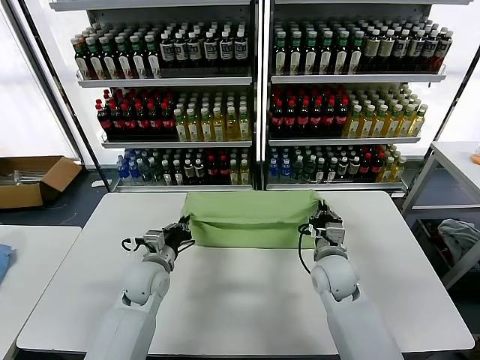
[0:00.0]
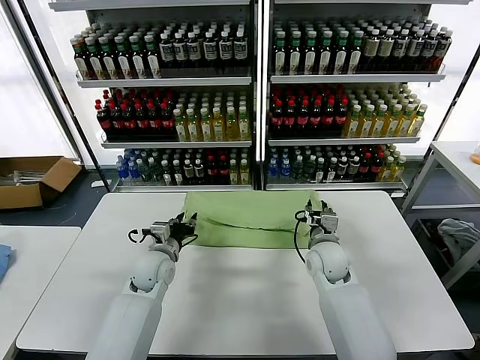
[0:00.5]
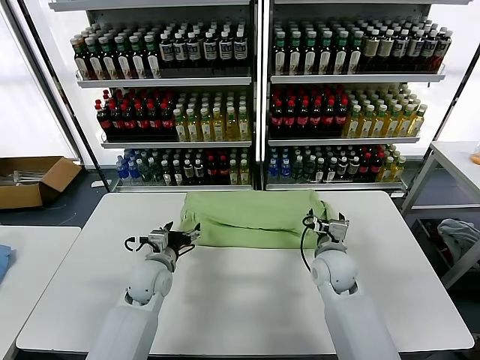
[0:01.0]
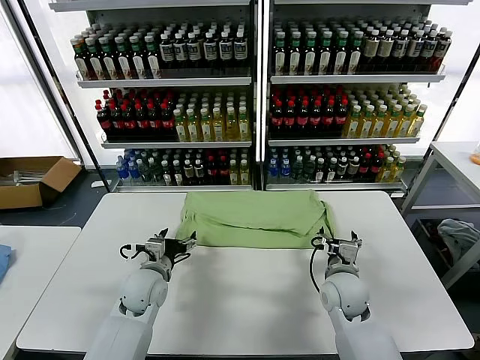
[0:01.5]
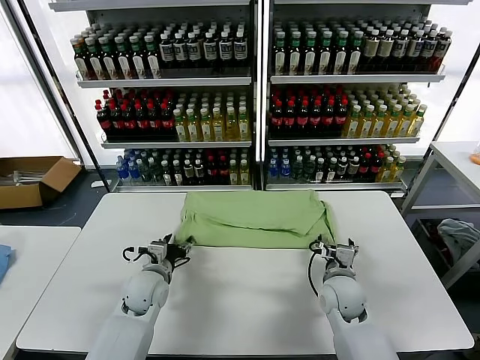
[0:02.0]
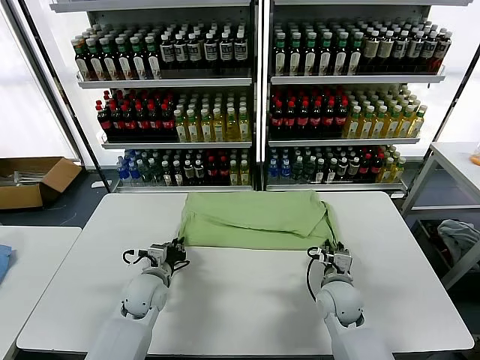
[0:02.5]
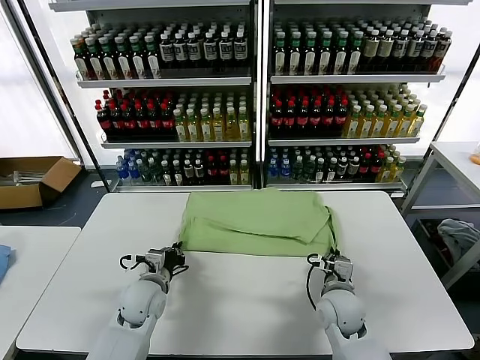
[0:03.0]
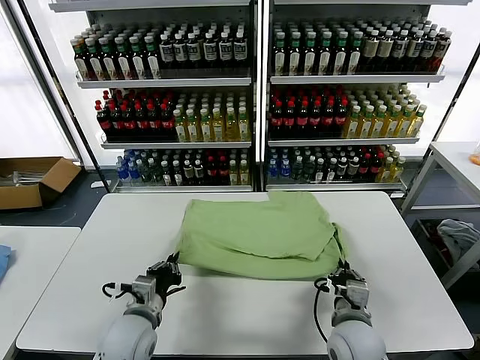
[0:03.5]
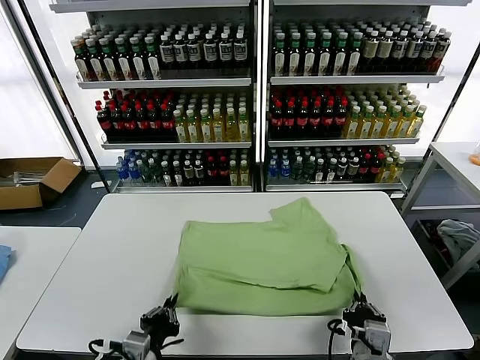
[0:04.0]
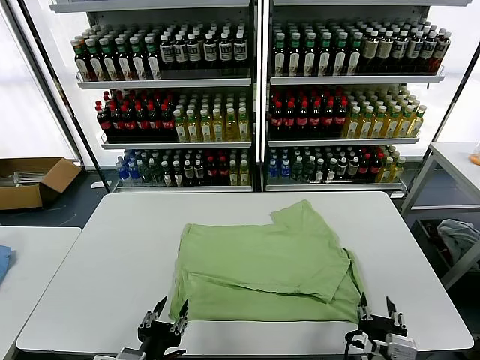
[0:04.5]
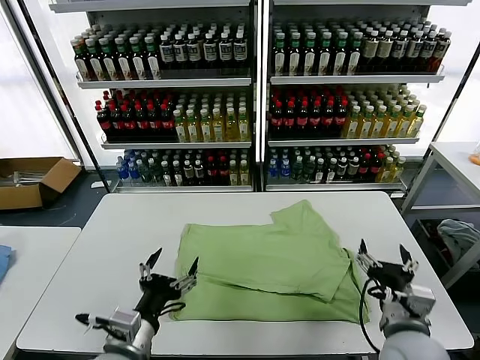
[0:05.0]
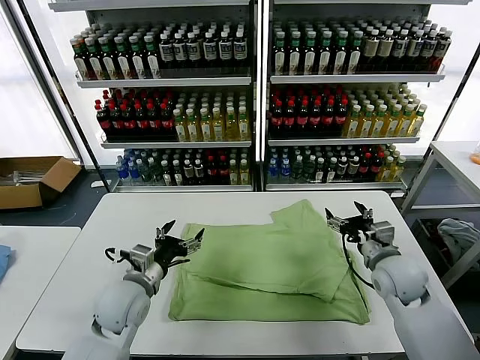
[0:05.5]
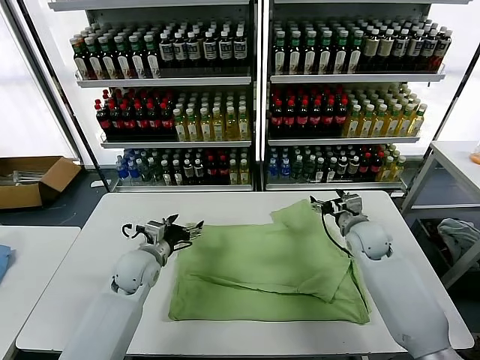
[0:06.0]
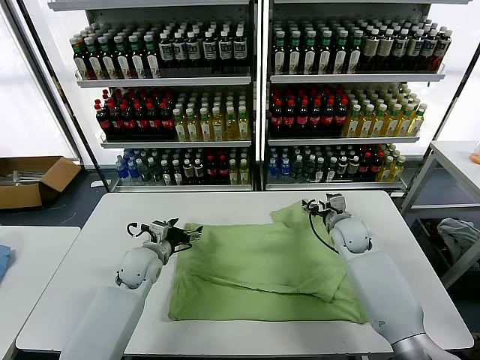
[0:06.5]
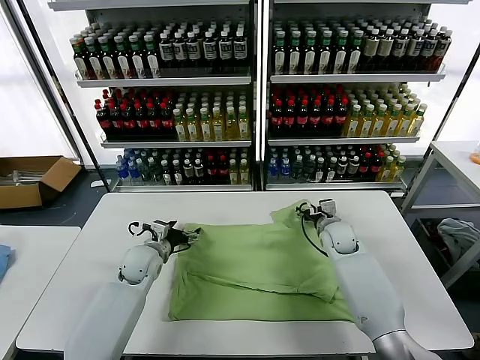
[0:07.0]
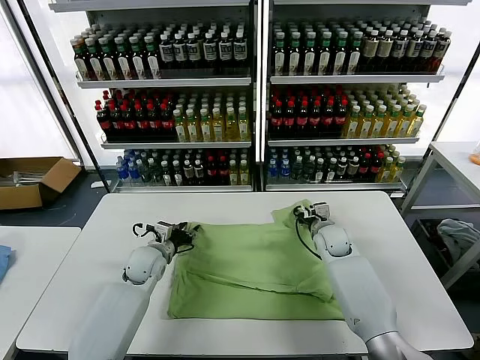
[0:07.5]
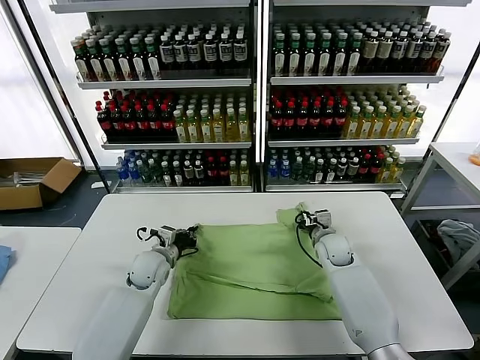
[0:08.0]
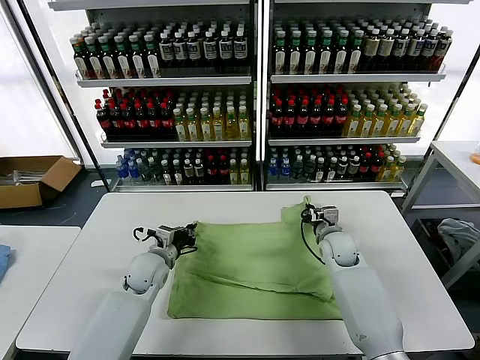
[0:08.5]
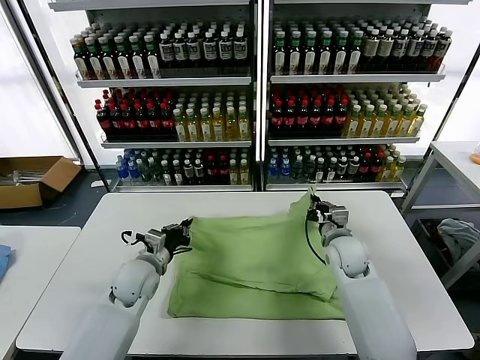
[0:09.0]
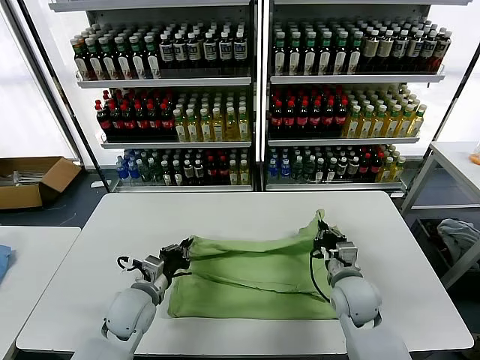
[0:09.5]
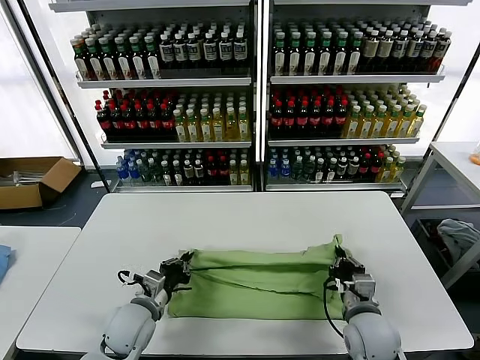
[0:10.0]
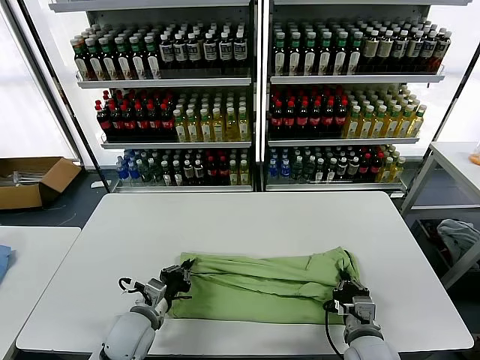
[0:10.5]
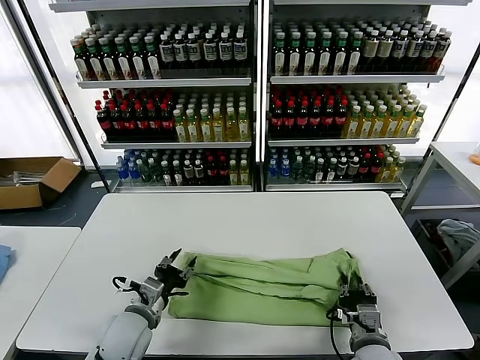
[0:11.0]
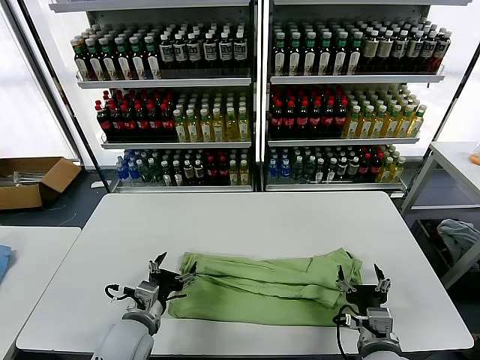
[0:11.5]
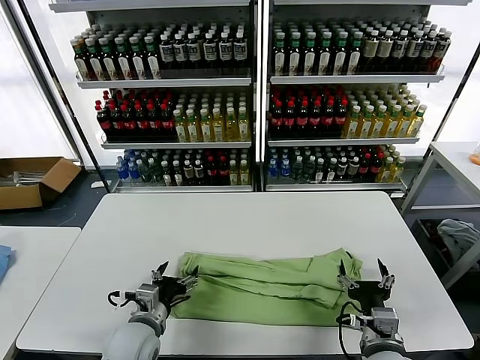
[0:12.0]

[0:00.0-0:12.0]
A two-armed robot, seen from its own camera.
Task of the whole recording: fold and organize the clothes.
Step, 0:01.0 to 0:04.0: Drag the clothes downward with both gripper.
Step, 0:04.5 to 0:08.0: use both grippers simultaneously to clamp the upper edge of the clothing fabric.
Step, 0:08.5 to 0:11.0: use both grippers to drag the upper edge of the fabric backward and fold it over the lower edge.
0:00.0 to 0:02.0: The left gripper opens; the right gripper ends up some 5 cm from where it was, and opens up.
0:02.0 to 0:04.0: The grippers both shift backward by approximately 20 cm. The left gripper closes up; the right gripper closes its fingers.
0:04.0 to 0:06.0: The two grippers go roughly 30 cm forward. The right gripper opens its fingers; the left gripper opens.
0:06.0 to 0:08.0: The left gripper shifts about 5 cm downward, and closes up. The right gripper goes about 10 cm downward and to the left, and closes.
0:08.0 to 0:10.0: The right gripper is displaced backward by some 25 cm. The left gripper travels backward by some 15 cm.
0:10.0 to 0:12.0: The left gripper opens. Meanwhile the right gripper heads backward, covering about 5 cm, and opens up.

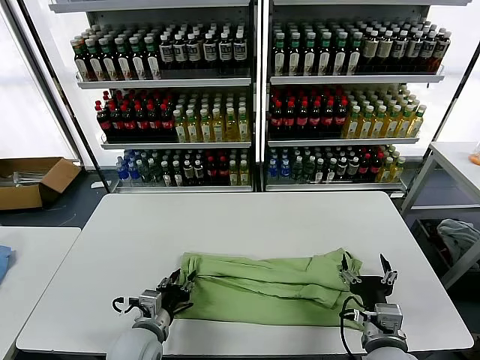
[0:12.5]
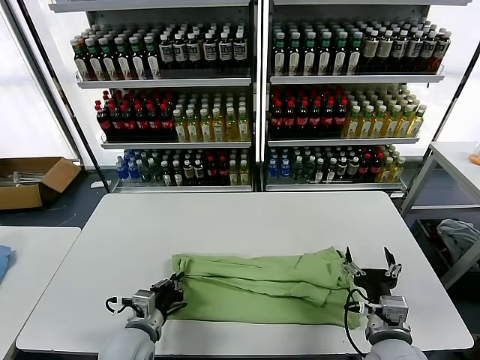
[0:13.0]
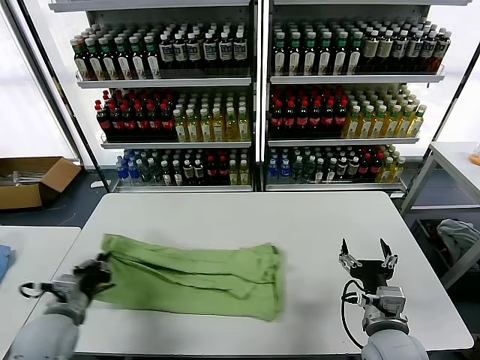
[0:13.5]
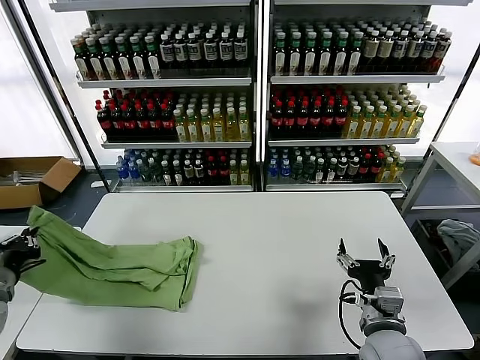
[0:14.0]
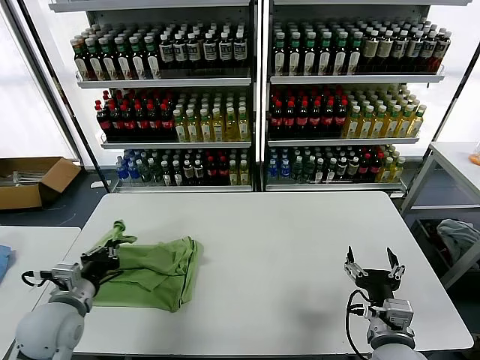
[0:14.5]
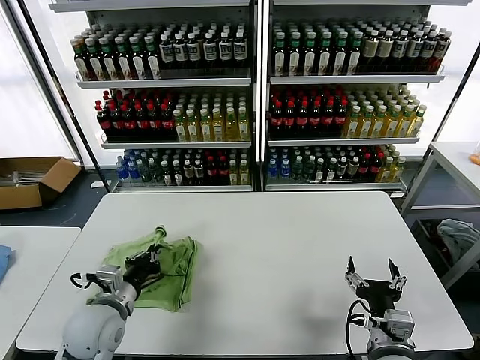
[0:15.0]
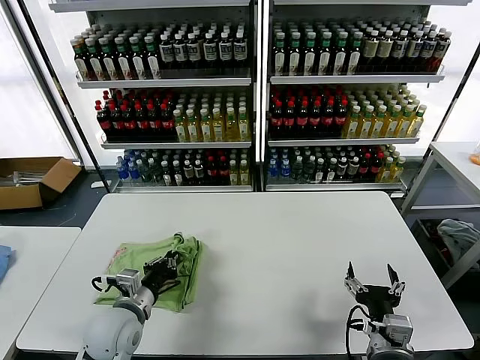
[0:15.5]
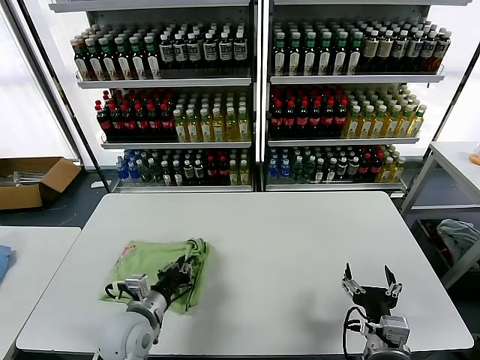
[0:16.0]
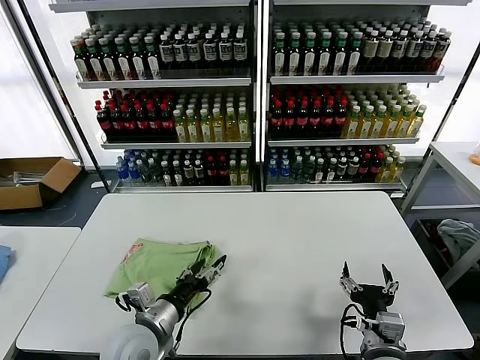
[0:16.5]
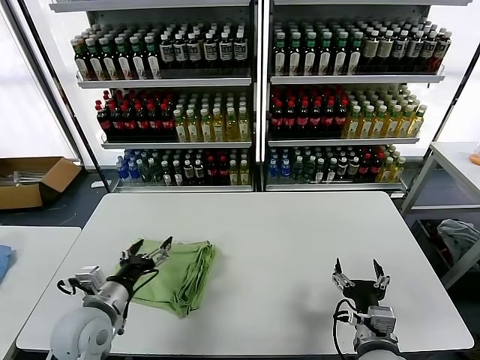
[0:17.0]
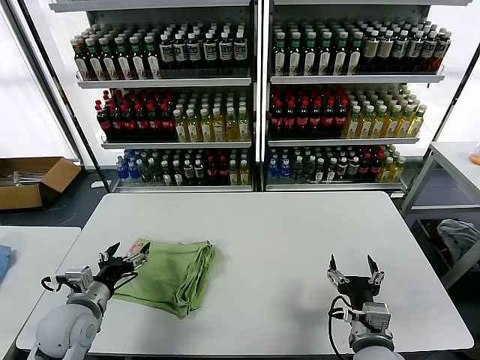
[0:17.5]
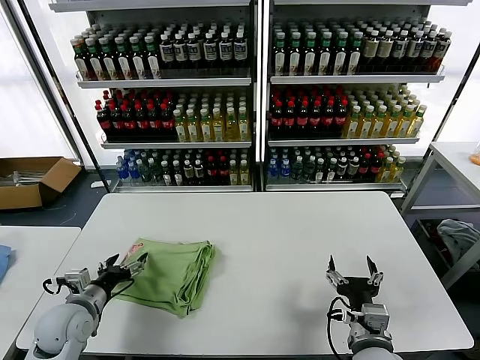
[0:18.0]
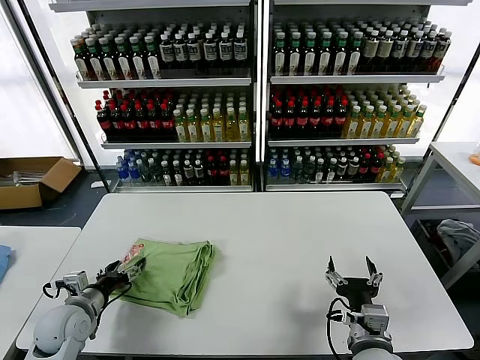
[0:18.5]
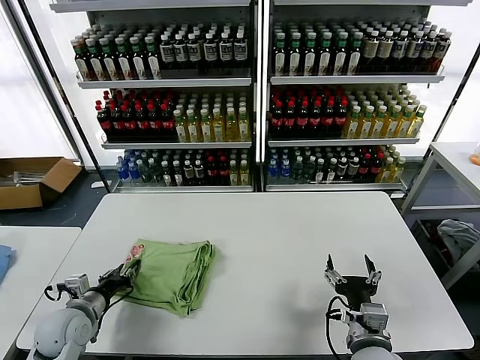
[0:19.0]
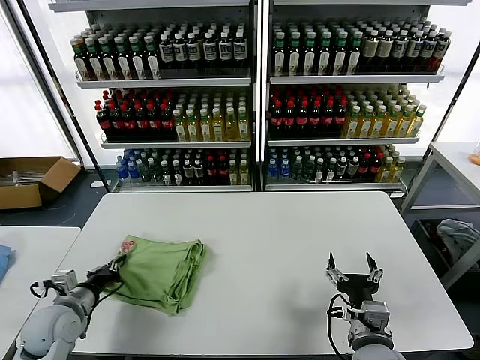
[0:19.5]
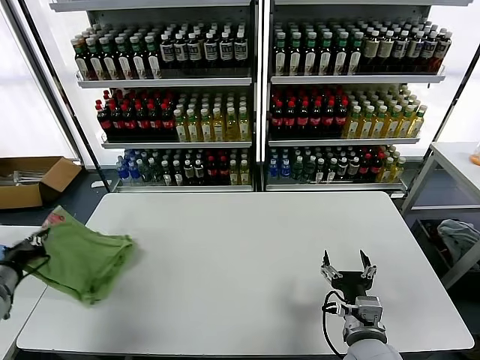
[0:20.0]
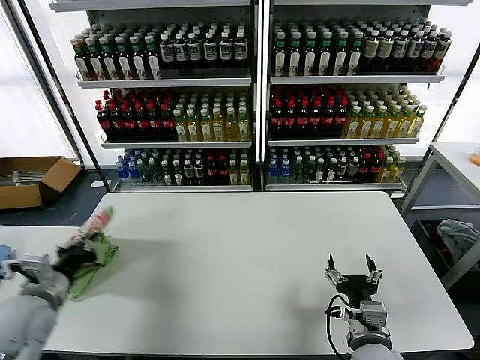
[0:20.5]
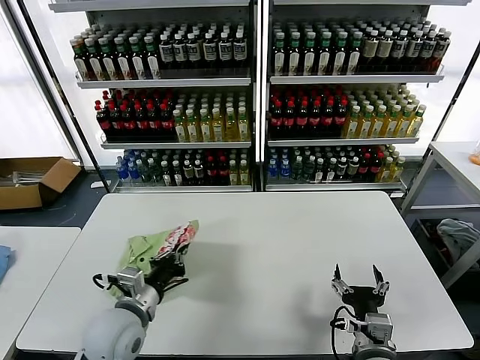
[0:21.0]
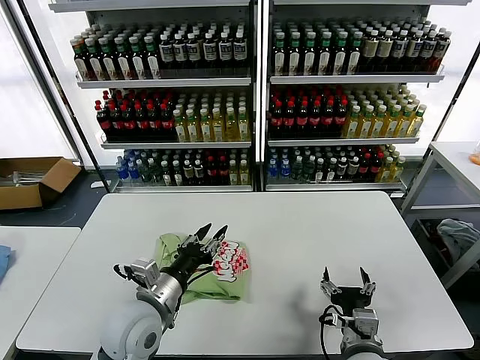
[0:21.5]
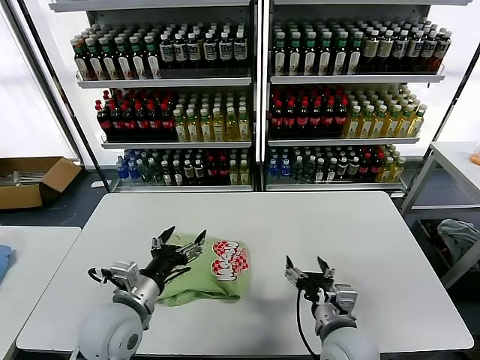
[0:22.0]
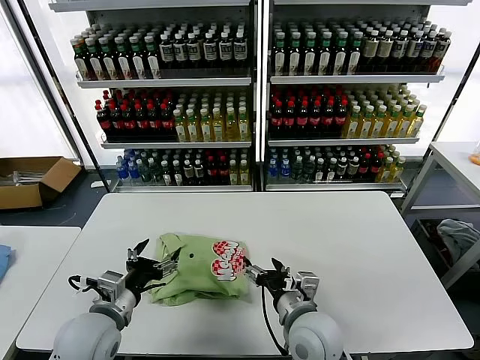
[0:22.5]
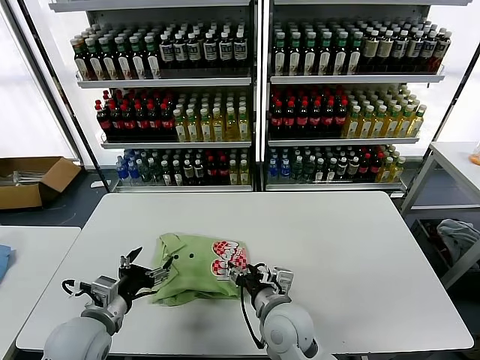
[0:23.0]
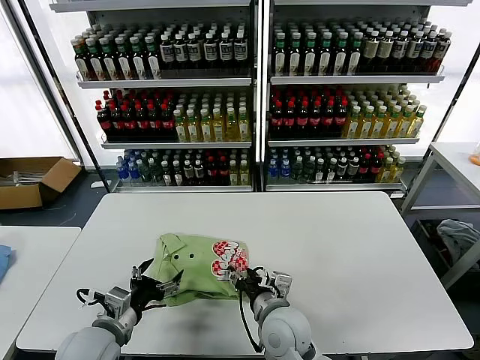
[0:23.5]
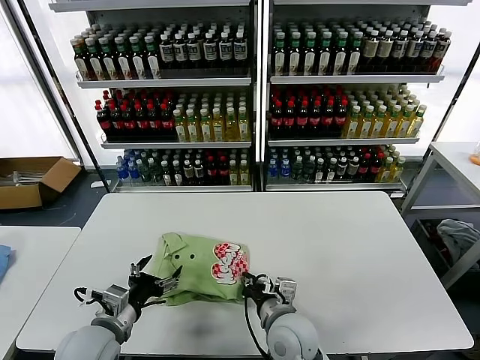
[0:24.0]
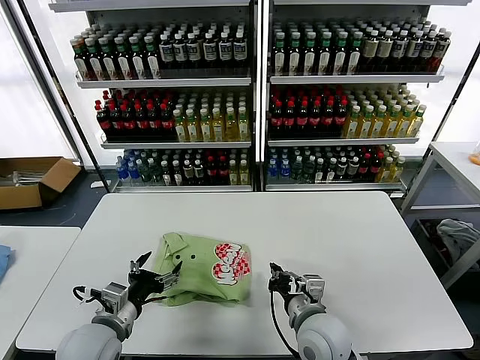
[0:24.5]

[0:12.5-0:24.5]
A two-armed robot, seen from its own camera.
Task of the whole recording: fold and organize the clothes.
Step, 0:13.0 to 0:16.0: use the left gripper to drag the left edge of the fabric to the left and folds it over the right edge.
Step, 0:16.5 to 0:21.5: Flip the folded clothes over with left gripper.
0:12.5 to 0:14.5: The left gripper travels to the left and upward by some 15 cm, and closes its fingers.
0:14.5 to 0:16.5: The left gripper heads to the right, covering approximately 15 cm, and opens.
0:16.5 to 0:18.5: The left gripper goes approximately 20 cm to the left.
0:18.5 to 0:20.5: The left gripper moves upward, about 10 cm, and closes up.
0:20.5 to 0:22.5: The right gripper heads to the left, covering roughly 10 cm; the left gripper goes some 15 cm to the right, and opens.
0:22.5 to 0:24.5: The right gripper closes its fingers.

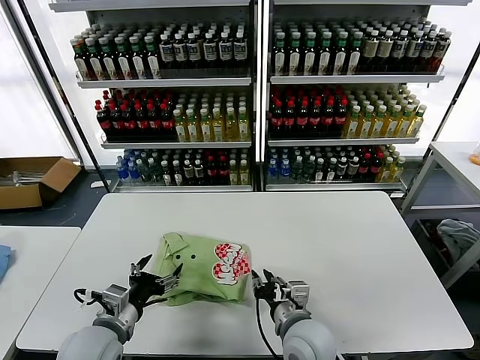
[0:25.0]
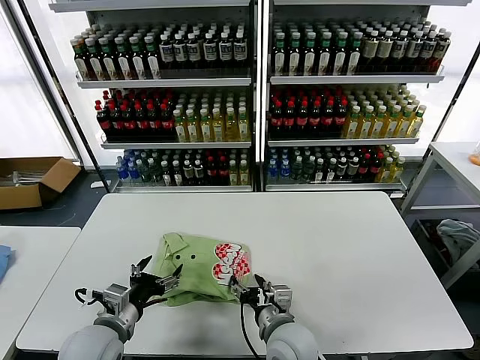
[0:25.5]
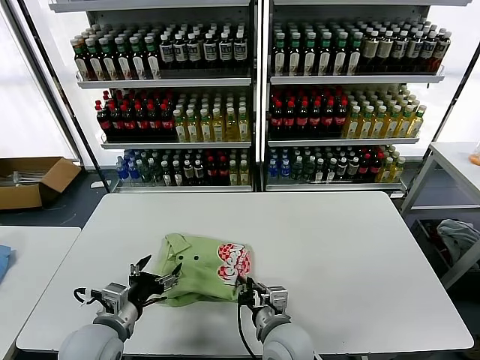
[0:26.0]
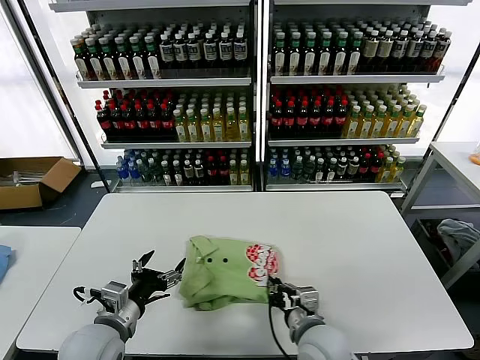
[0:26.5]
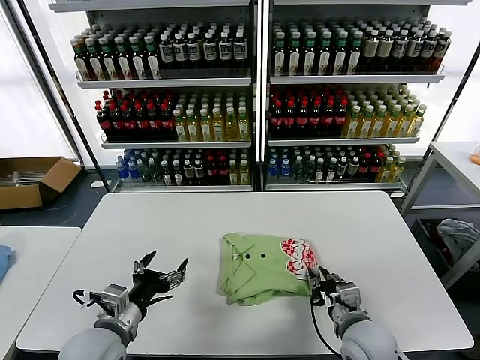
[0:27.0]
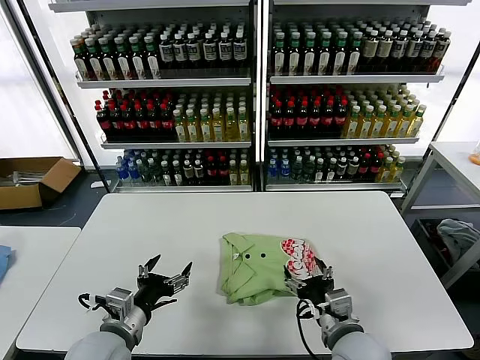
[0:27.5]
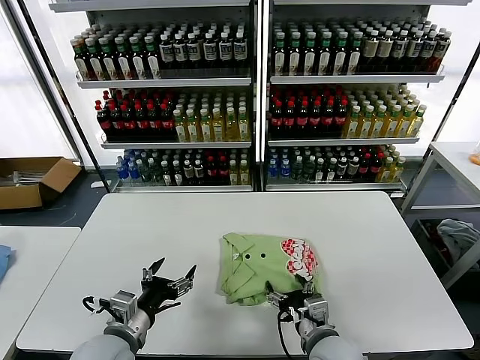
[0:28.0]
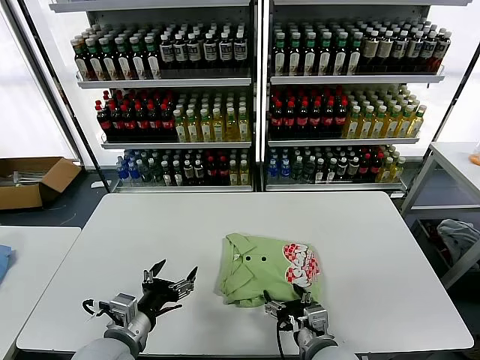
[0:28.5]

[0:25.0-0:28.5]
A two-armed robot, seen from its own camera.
Task of the whole recording: fold and organize the clothes.
0:25.0 to 0:27.0: The right gripper is displaced to the right by roughly 10 cm, and opens, then closes again.
0:27.0 to 0:28.5: The right gripper shifts approximately 5 cm to the left, and opens.
